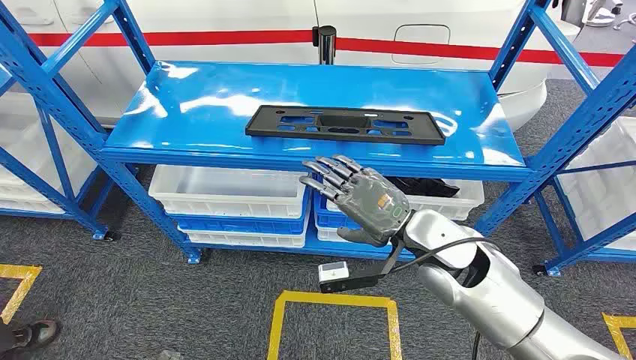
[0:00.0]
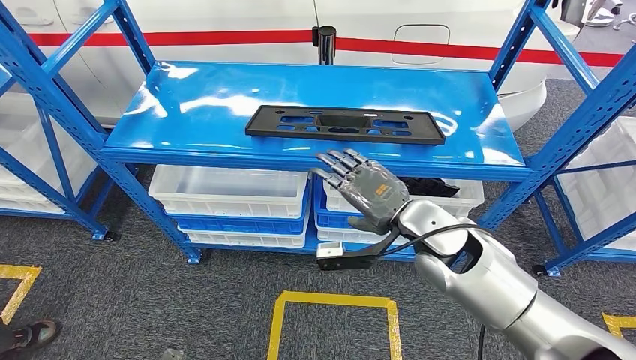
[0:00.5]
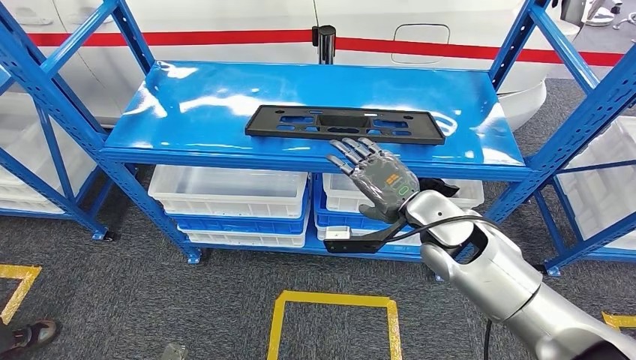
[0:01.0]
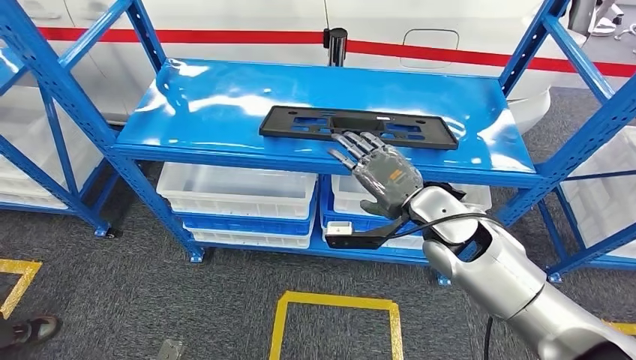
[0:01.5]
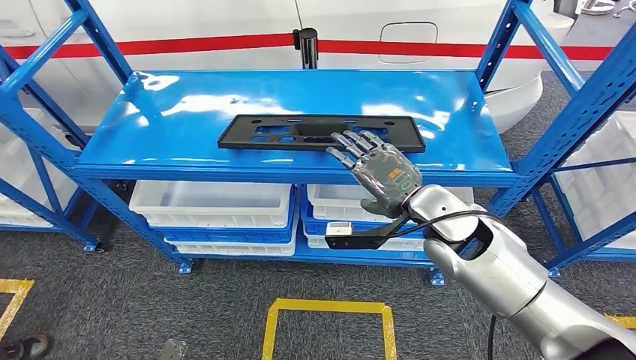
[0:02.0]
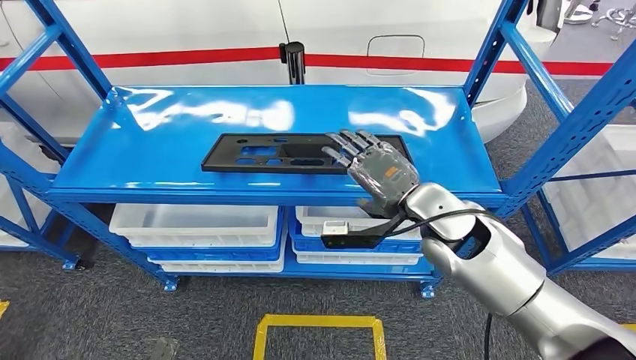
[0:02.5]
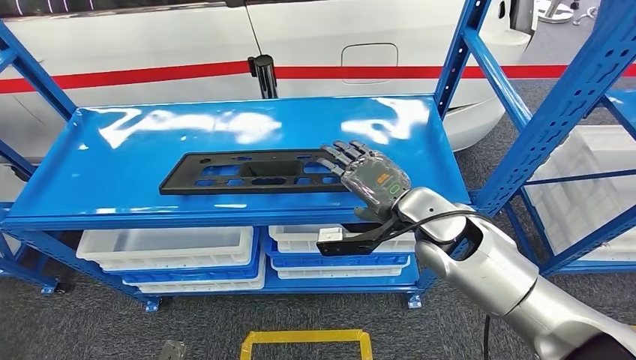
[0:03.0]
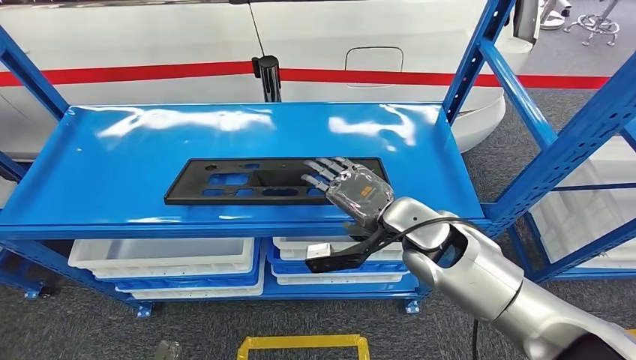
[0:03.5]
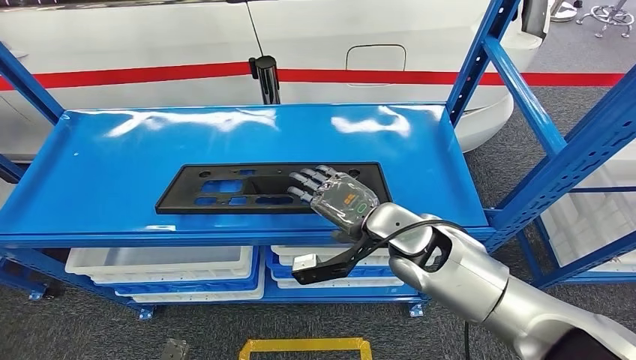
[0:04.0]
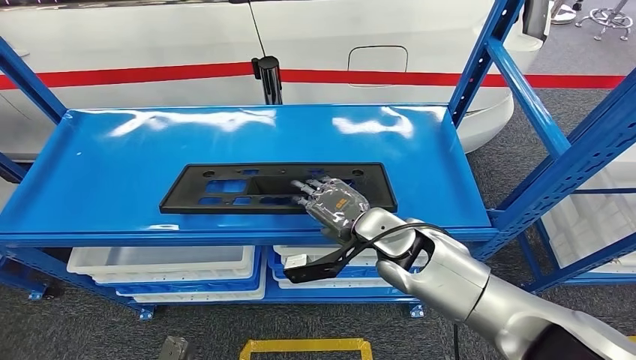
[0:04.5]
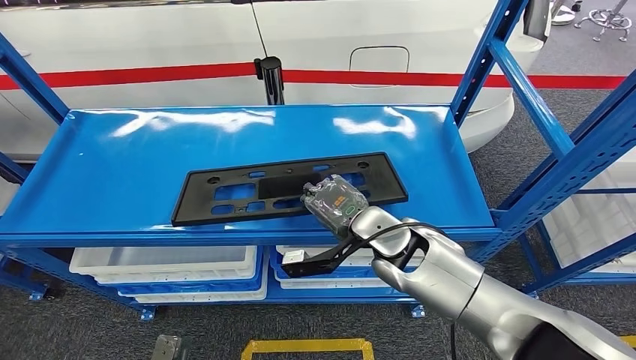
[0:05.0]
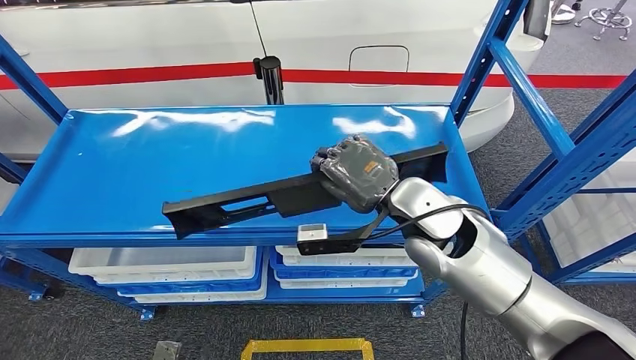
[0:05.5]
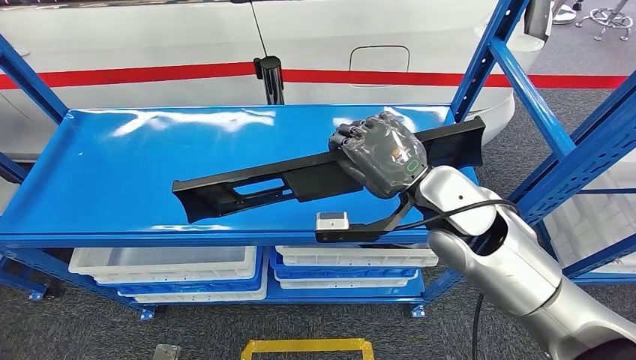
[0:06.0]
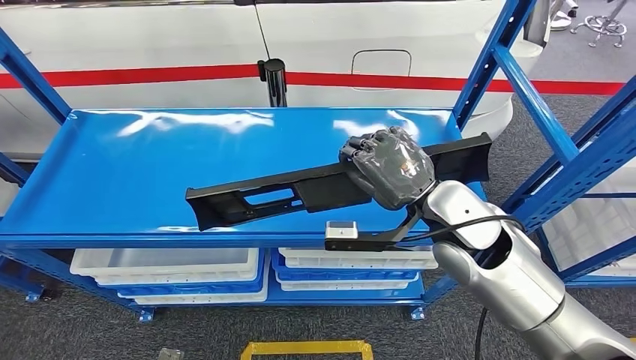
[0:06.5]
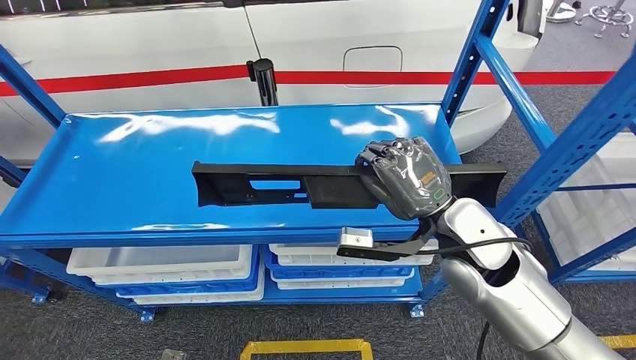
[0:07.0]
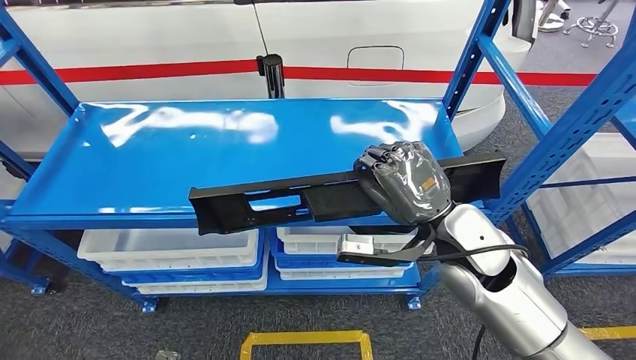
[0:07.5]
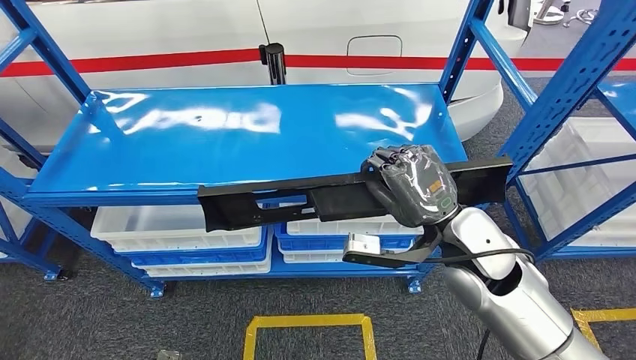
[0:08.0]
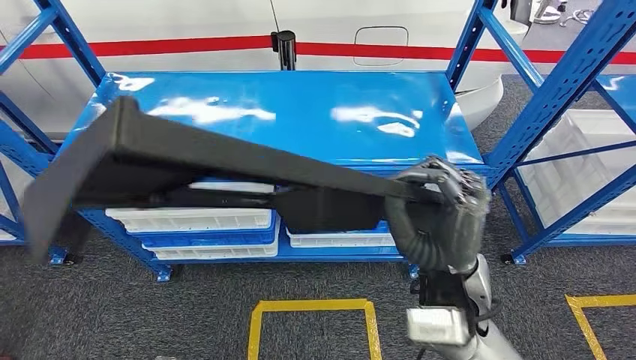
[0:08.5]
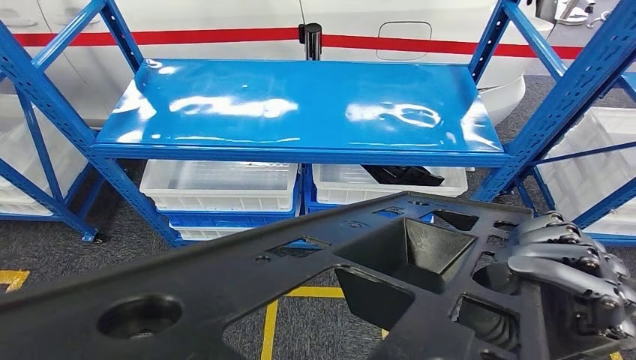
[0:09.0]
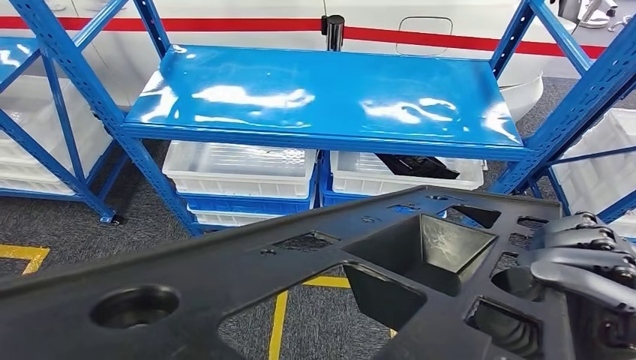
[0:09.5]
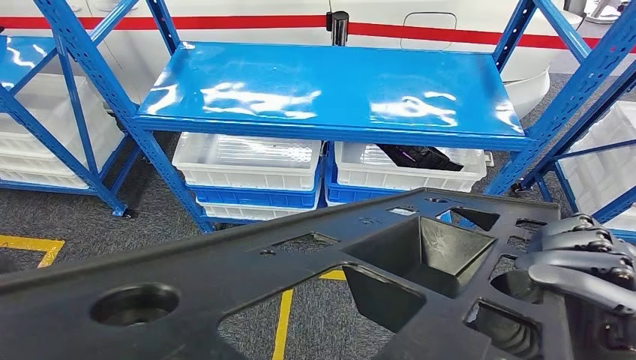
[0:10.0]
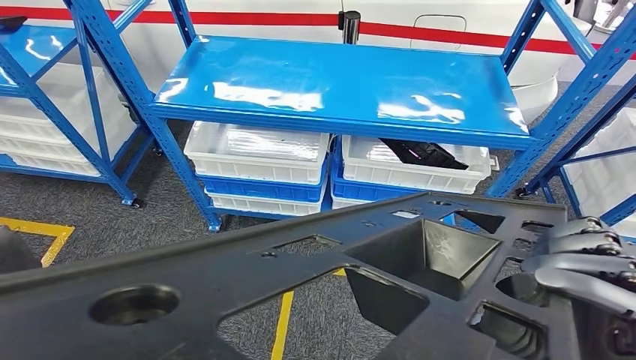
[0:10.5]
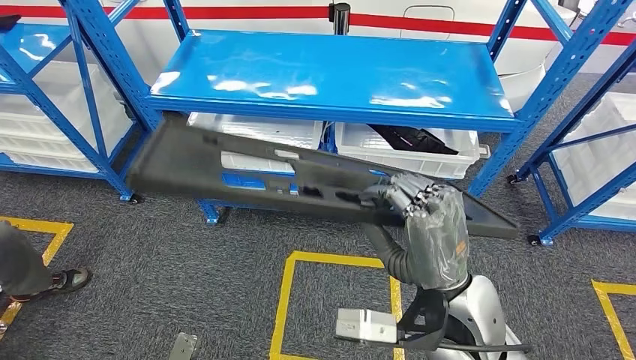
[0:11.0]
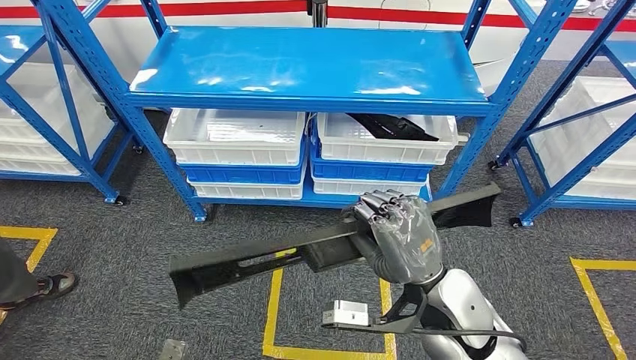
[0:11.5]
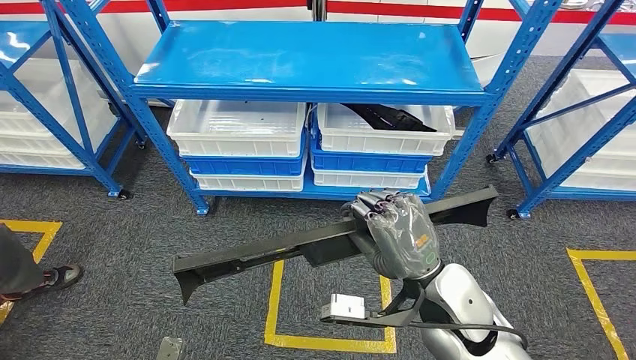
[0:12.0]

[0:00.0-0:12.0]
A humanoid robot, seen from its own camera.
Step, 0:00.0 to 0:06.5: Pick up the large material from the shelf.

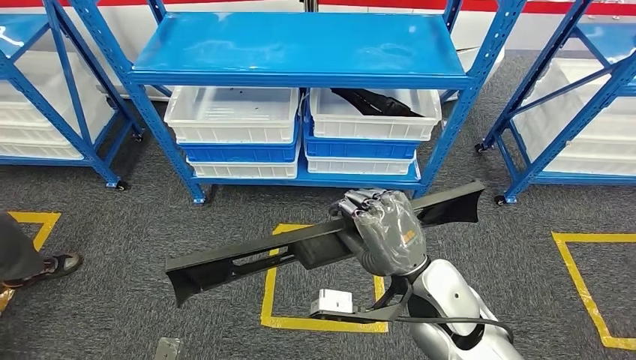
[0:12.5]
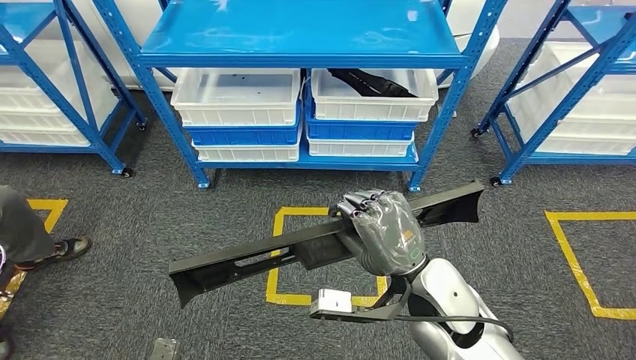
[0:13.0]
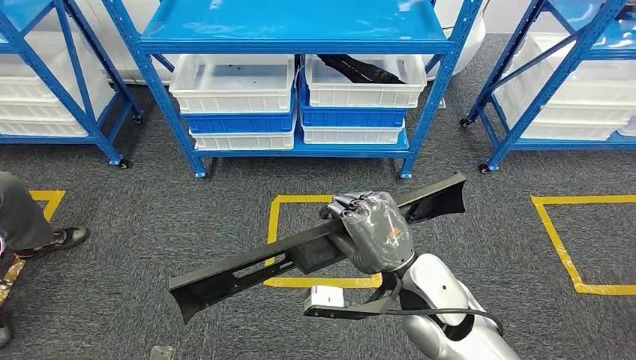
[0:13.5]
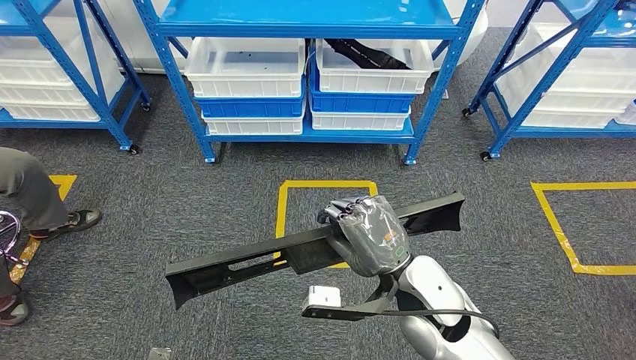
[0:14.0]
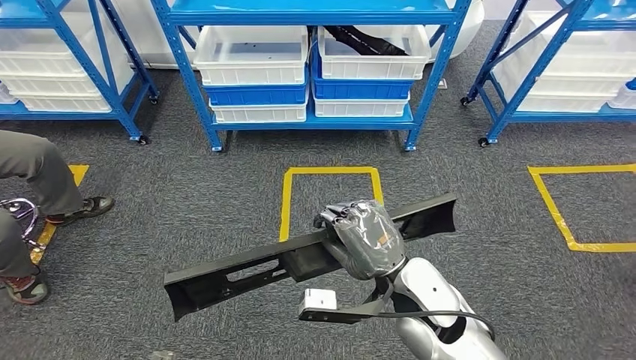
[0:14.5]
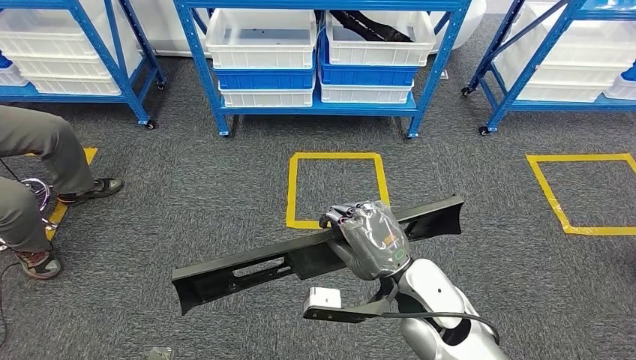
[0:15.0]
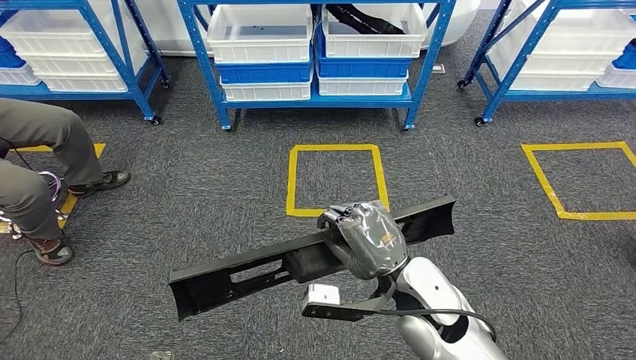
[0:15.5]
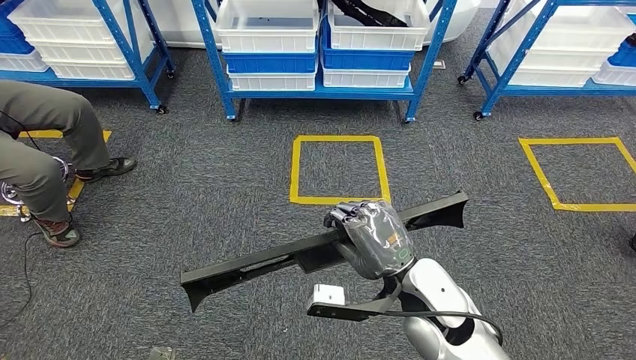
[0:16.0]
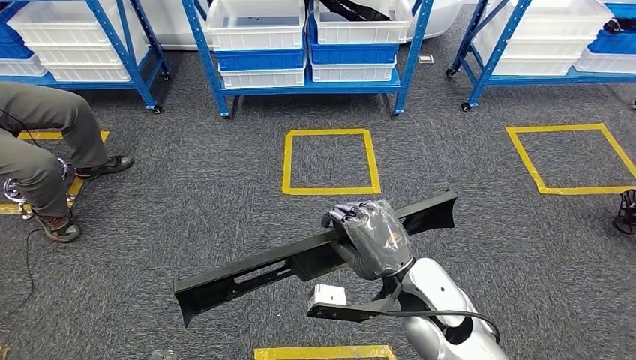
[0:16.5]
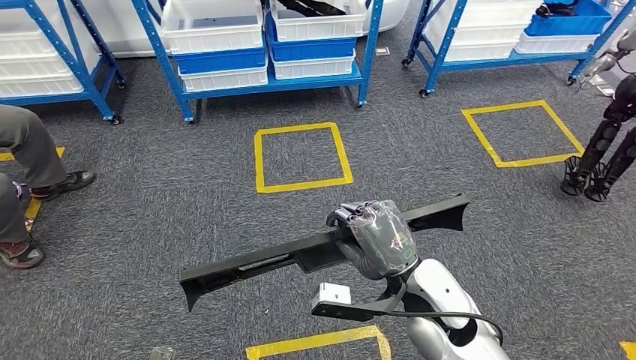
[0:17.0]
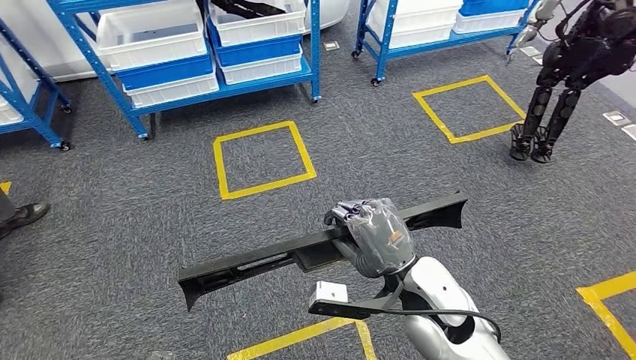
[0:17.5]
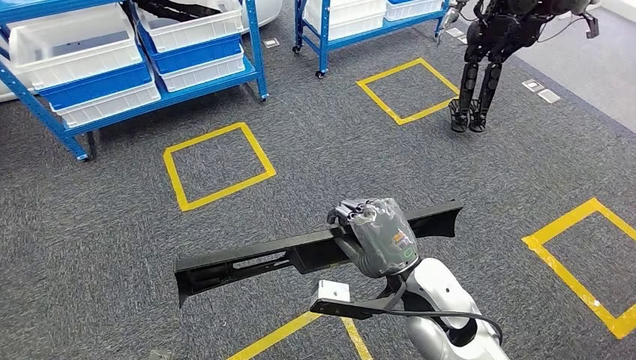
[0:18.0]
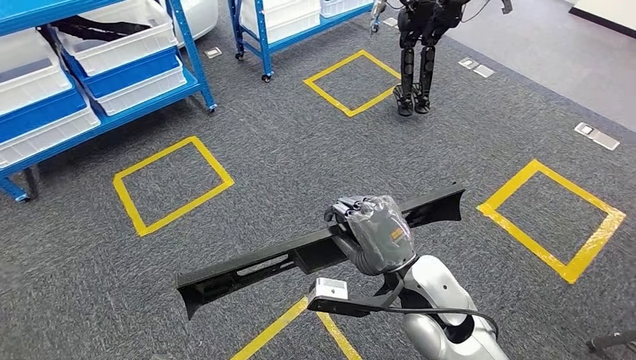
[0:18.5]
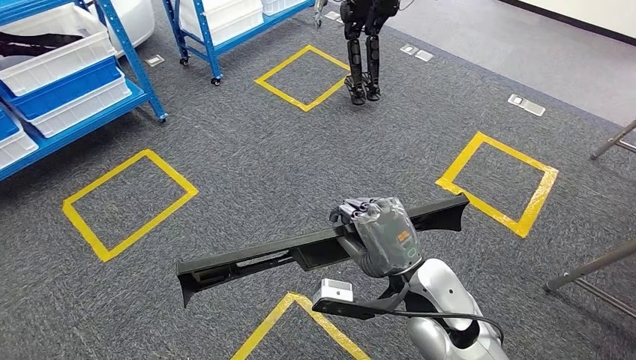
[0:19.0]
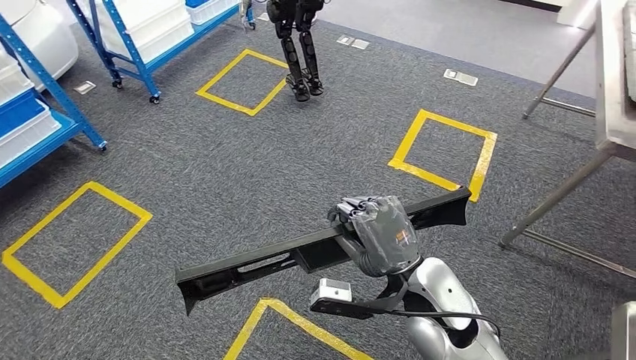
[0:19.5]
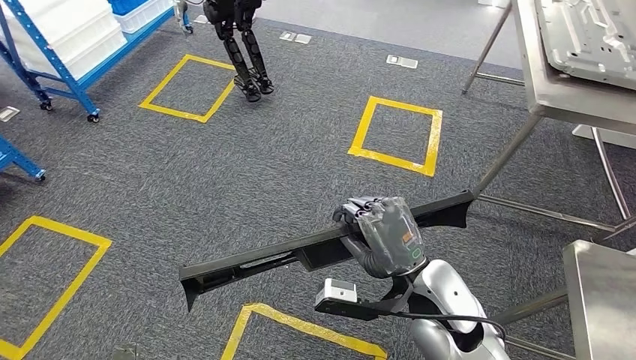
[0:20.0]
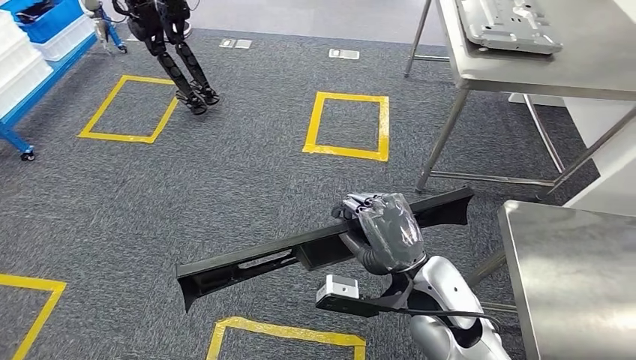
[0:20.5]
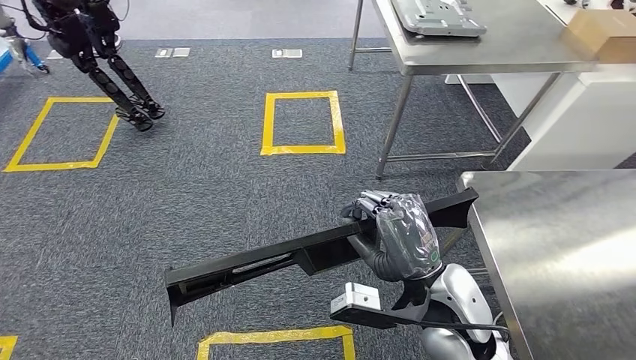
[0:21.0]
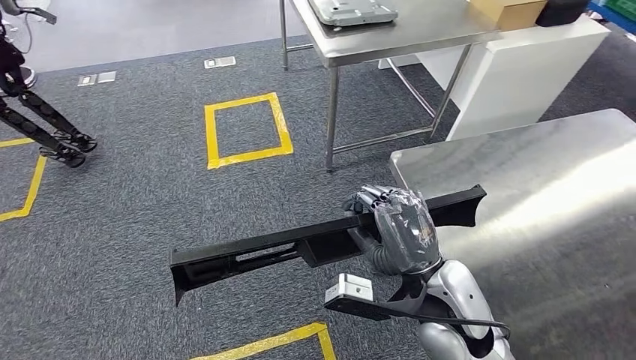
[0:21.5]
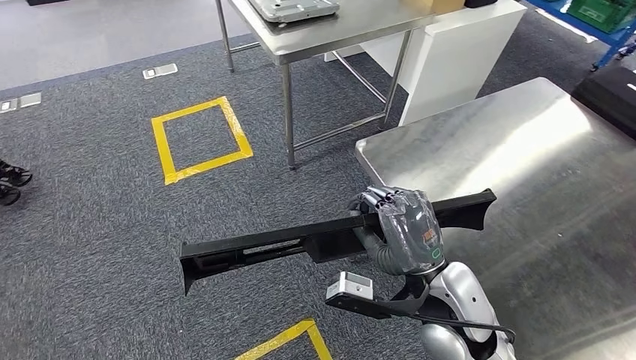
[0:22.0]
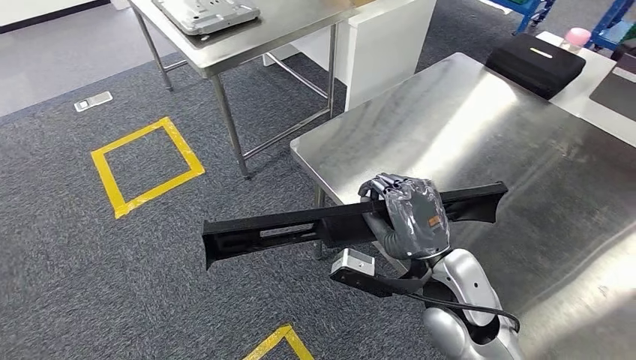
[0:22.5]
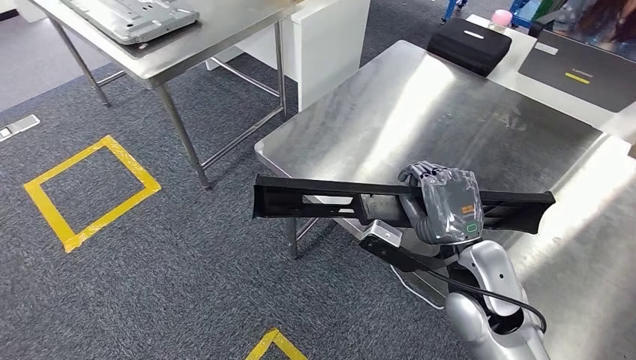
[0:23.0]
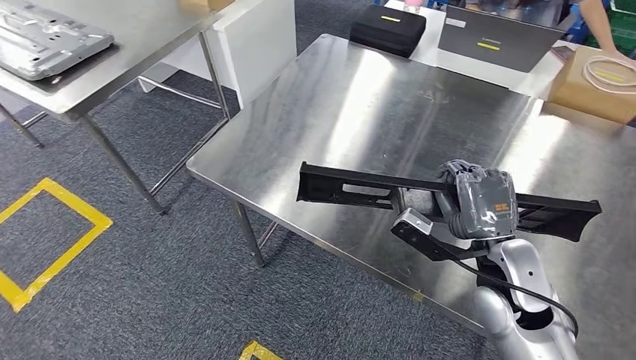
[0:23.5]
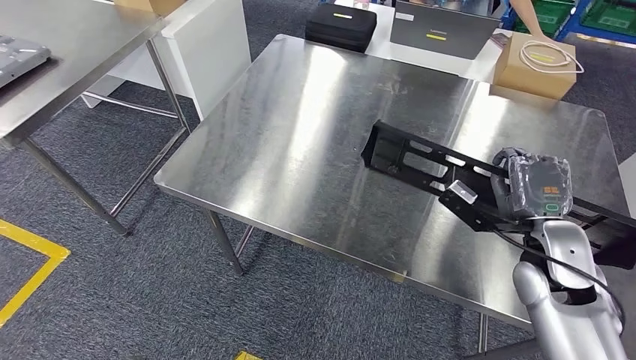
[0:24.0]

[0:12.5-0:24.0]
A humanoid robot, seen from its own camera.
Step, 0:12.5 to 0:20.5: Move the large material to the workbench.
